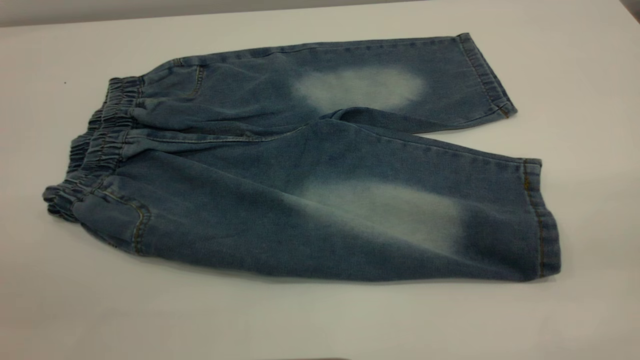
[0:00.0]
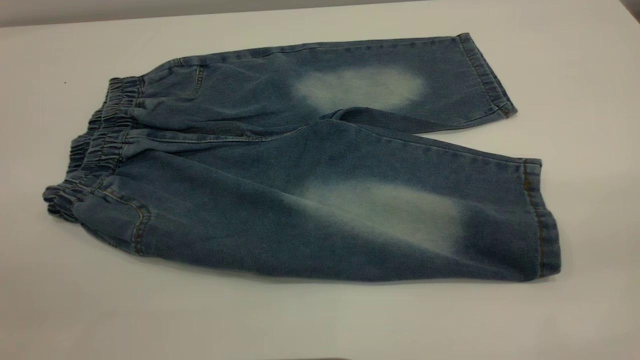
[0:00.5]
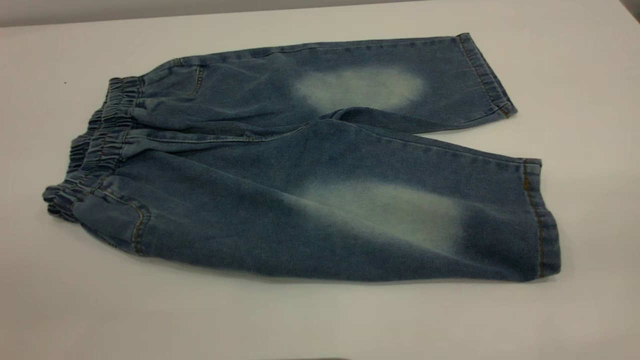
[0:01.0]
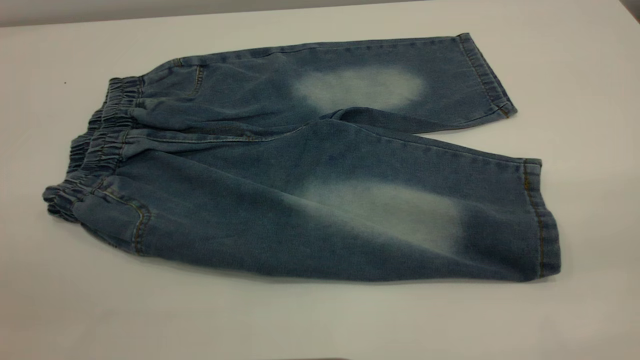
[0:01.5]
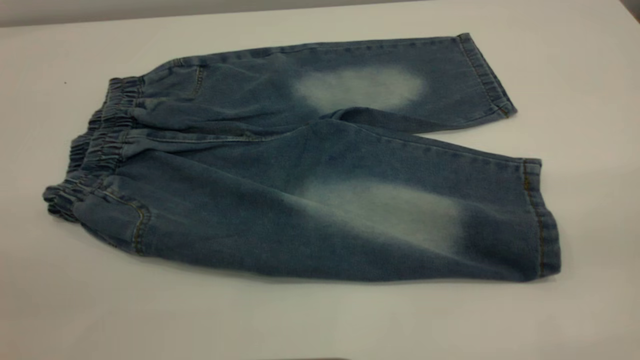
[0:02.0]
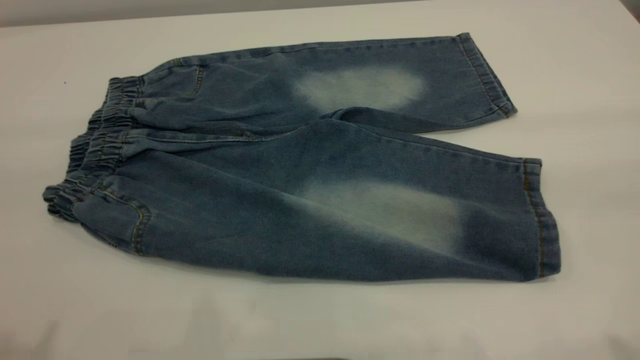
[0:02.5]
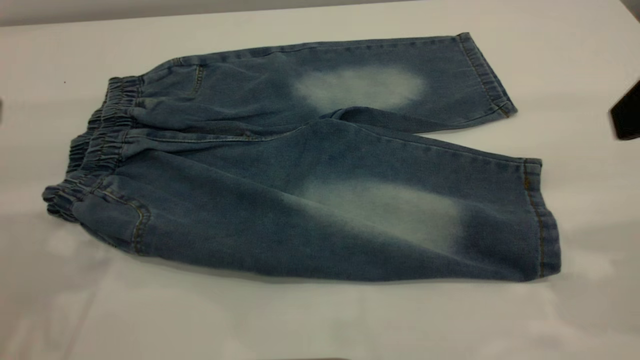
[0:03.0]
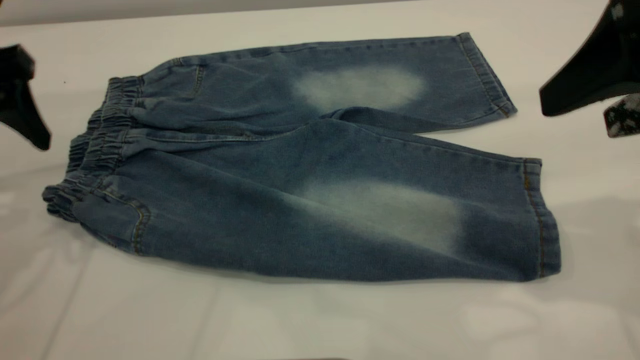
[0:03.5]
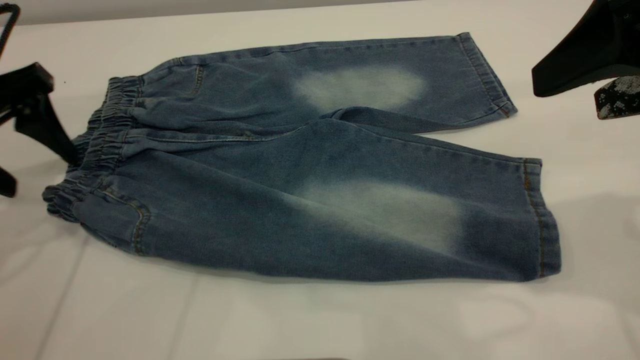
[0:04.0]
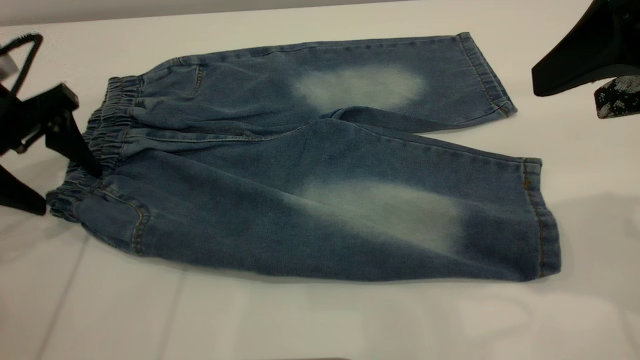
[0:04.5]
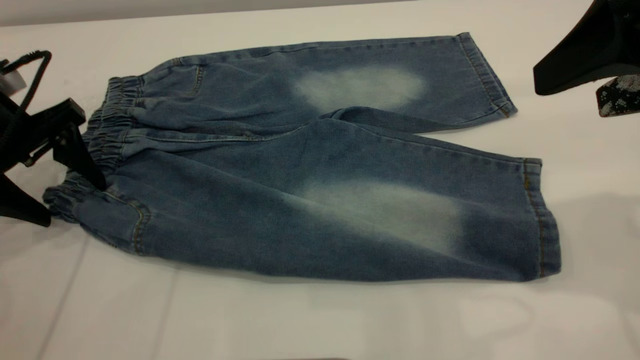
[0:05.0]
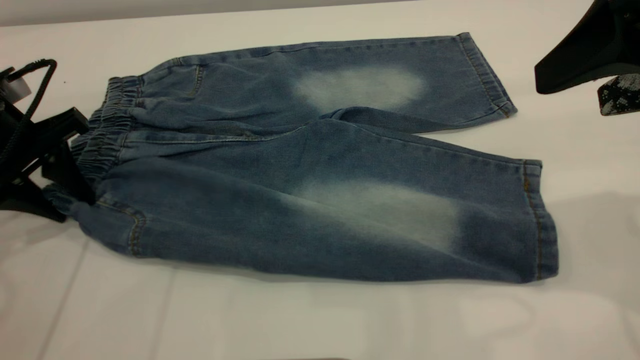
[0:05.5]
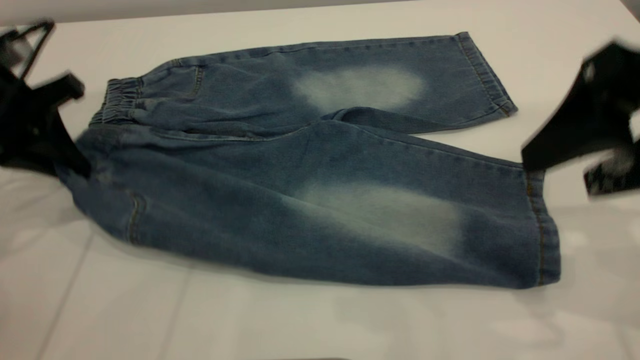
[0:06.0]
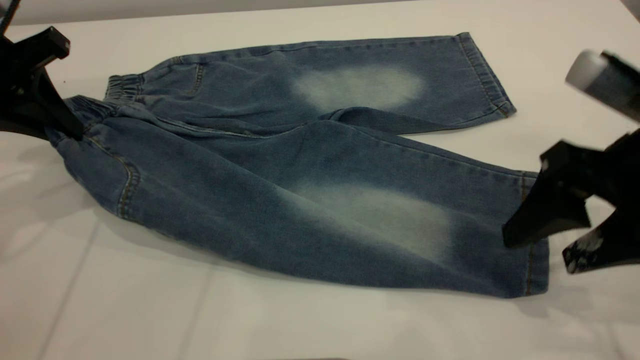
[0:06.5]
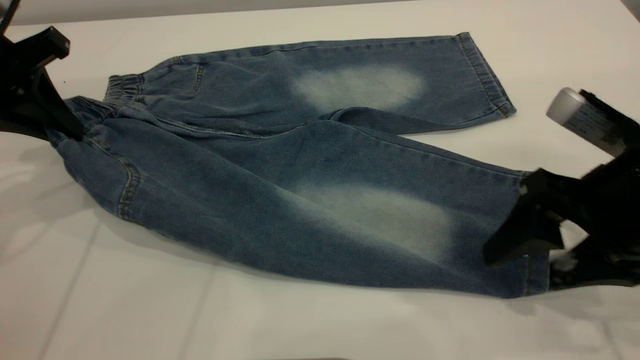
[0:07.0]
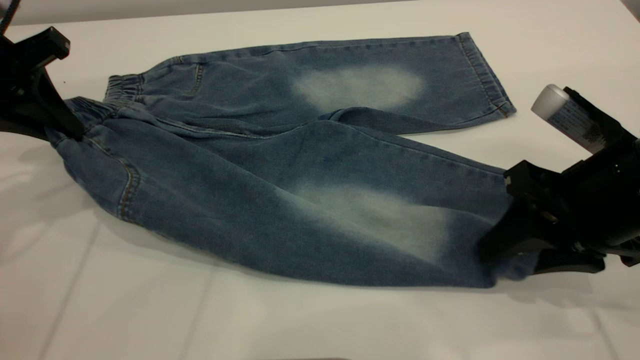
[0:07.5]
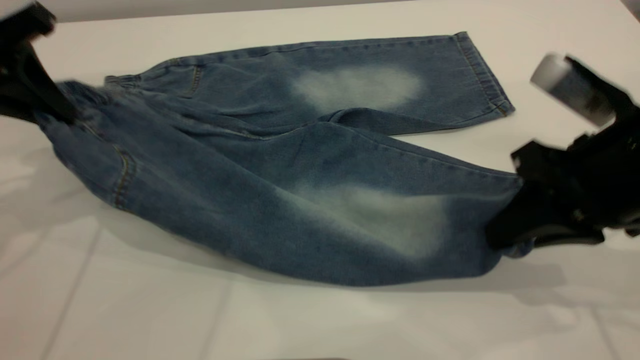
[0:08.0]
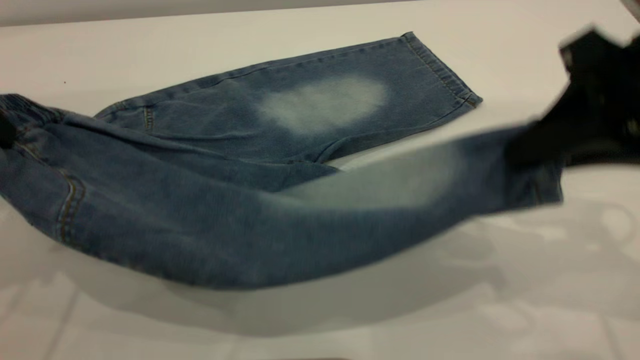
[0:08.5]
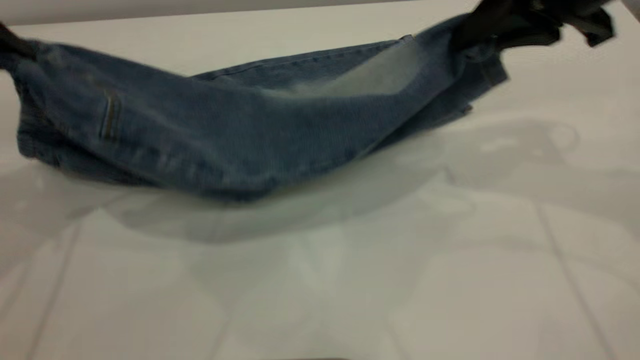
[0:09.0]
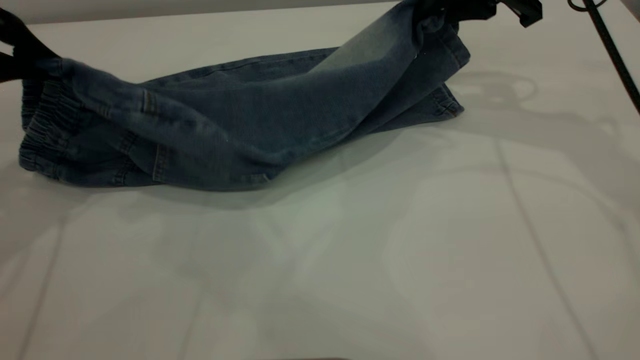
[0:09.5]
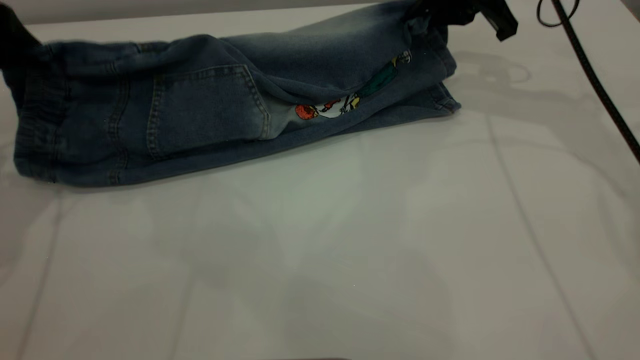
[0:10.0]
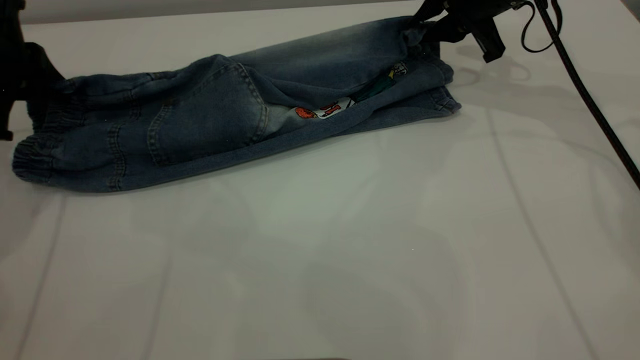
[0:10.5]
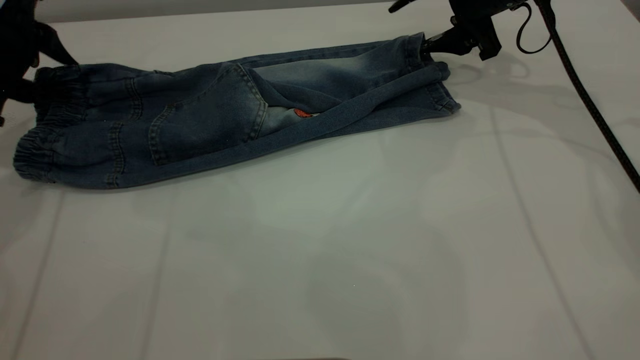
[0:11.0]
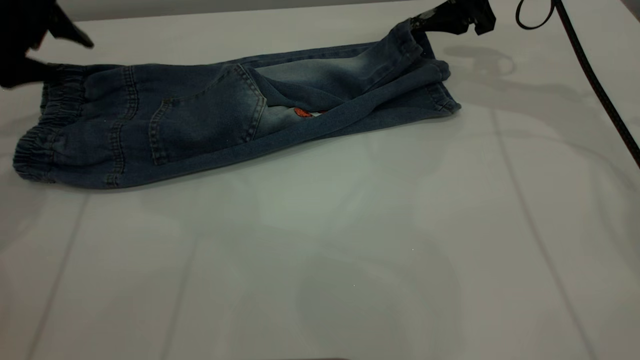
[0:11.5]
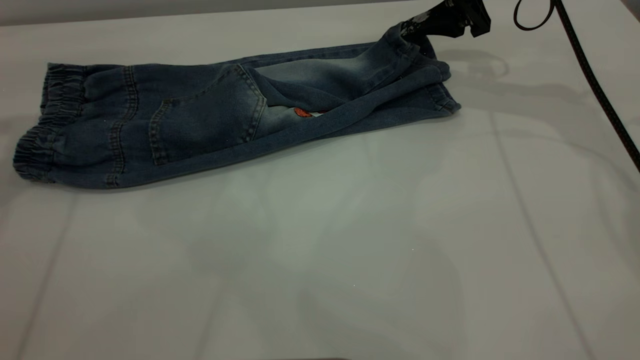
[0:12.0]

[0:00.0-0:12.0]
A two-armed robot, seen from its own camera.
Step, 0:00.0 to 0:11.5: Fold the bottom of the pants upward.
0:00.0 to 0:02.0: The two grippers keep their place.
0:02.0 to 0:04.0: The left gripper travels forward and downward by some 35 cm, while the right gripper is displaced forward by some 20 cm.
0:04.0 to 0:06.0: The left gripper closes.
0:06.0 to 0:08.0: The right gripper shifts approximately 5 cm downward, and closes, while the left gripper travels upward by approximately 5 cm.
0:08.0 to 0:10.0: The right gripper travels forward by roughly 25 cm.
0:10.0 to 0:12.0: The right gripper opens; the left gripper shifts some 5 cm upward, and opens.

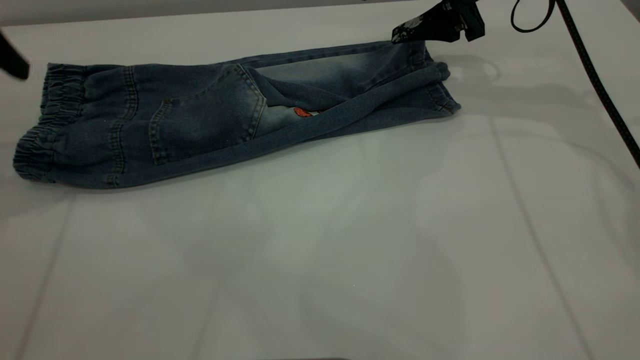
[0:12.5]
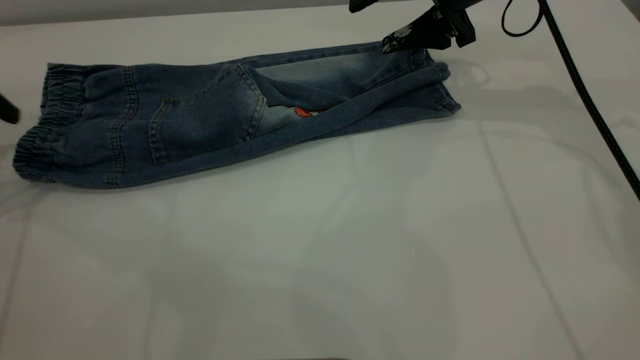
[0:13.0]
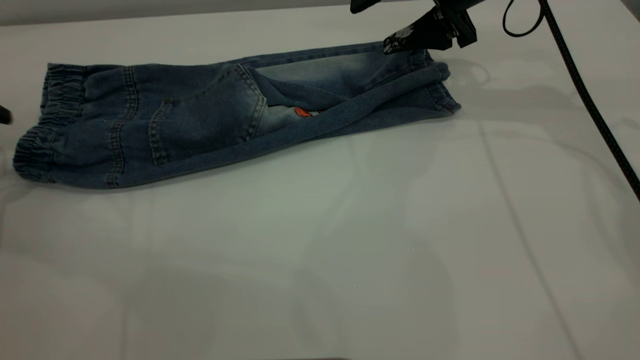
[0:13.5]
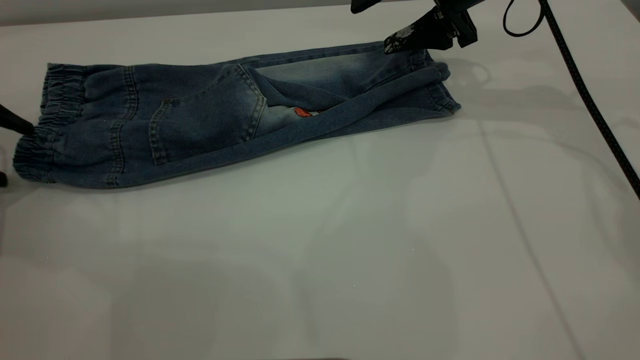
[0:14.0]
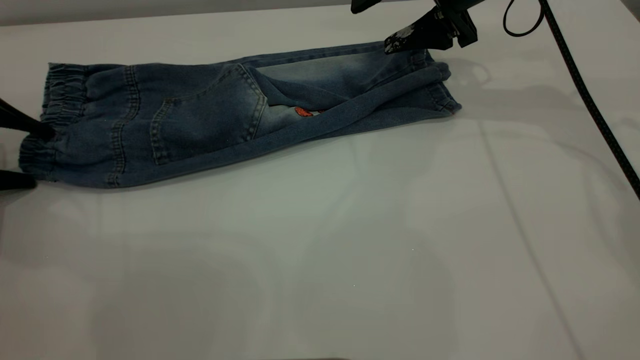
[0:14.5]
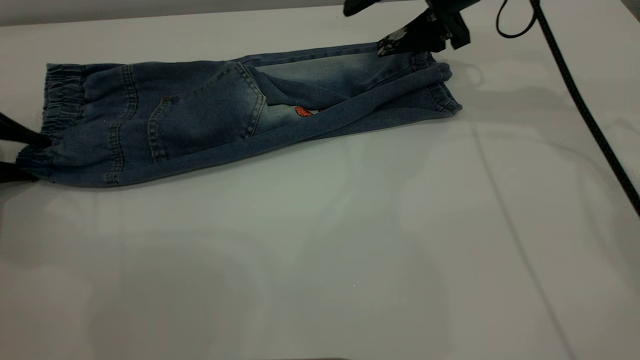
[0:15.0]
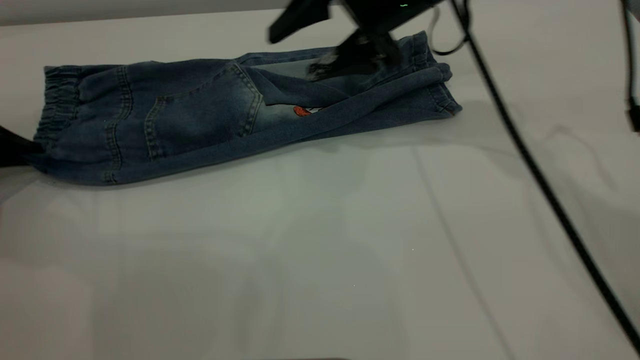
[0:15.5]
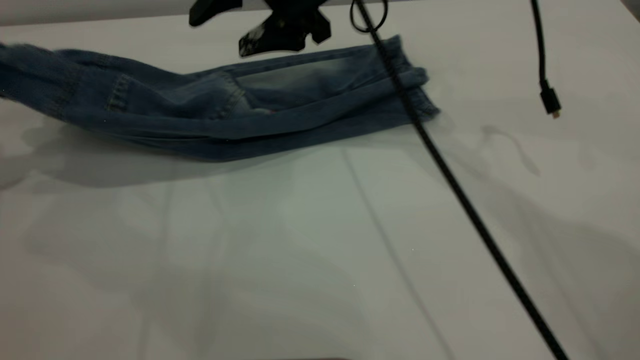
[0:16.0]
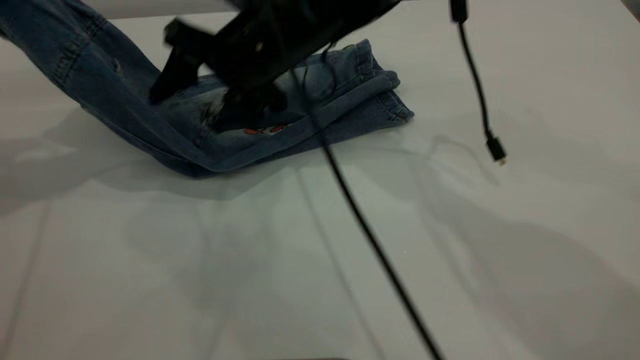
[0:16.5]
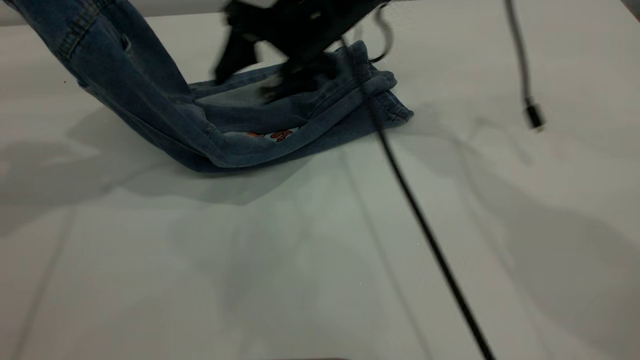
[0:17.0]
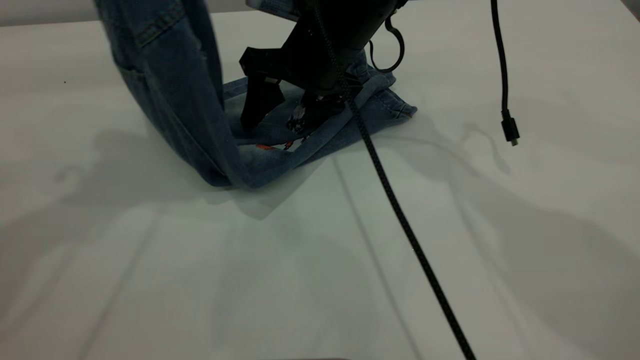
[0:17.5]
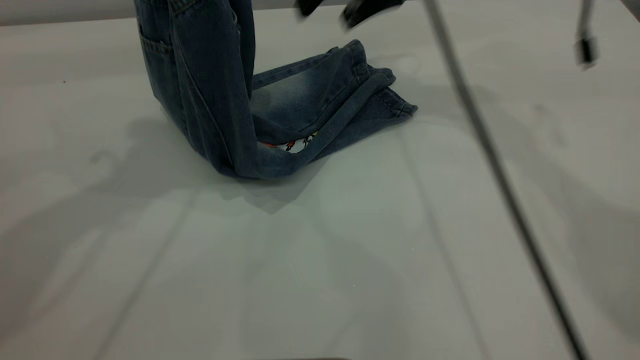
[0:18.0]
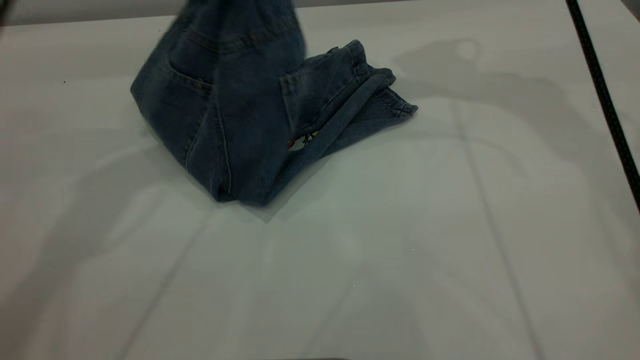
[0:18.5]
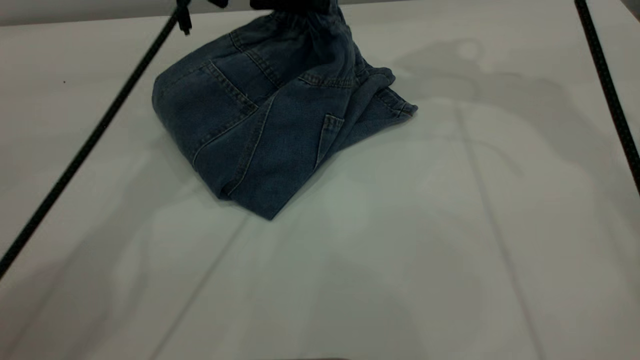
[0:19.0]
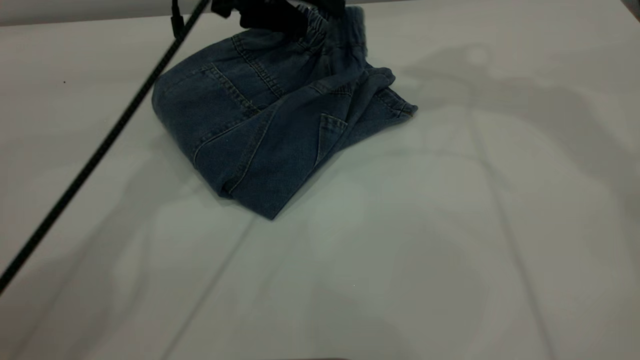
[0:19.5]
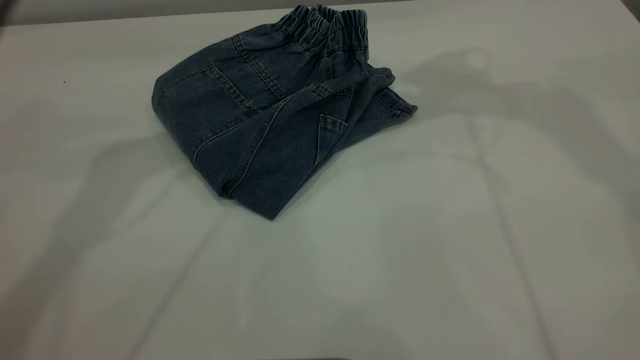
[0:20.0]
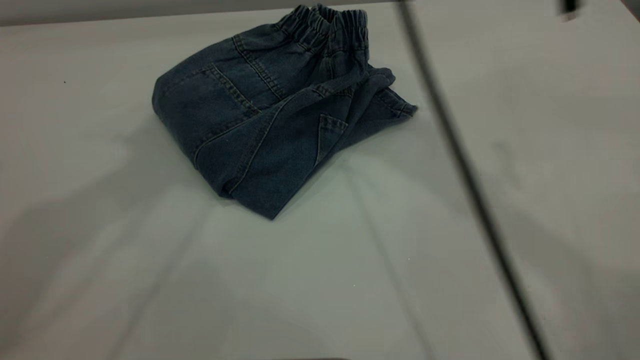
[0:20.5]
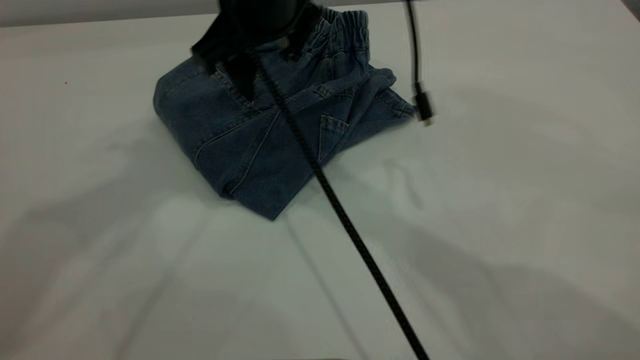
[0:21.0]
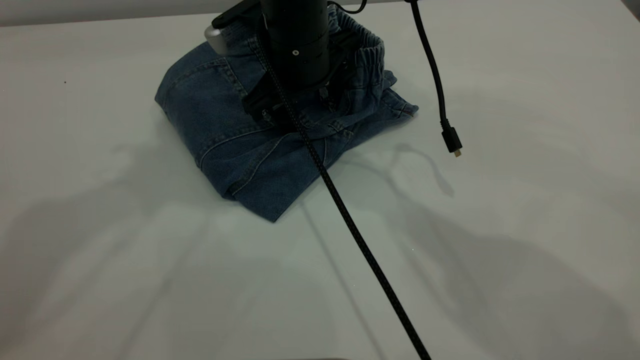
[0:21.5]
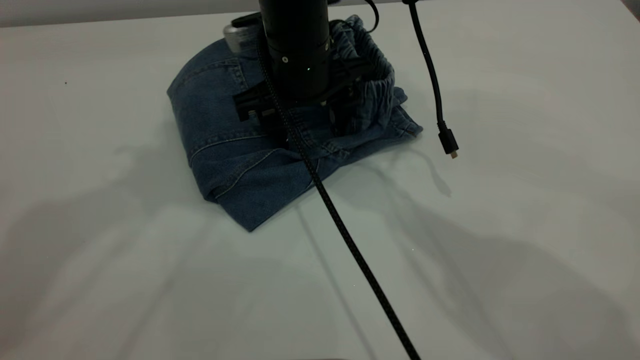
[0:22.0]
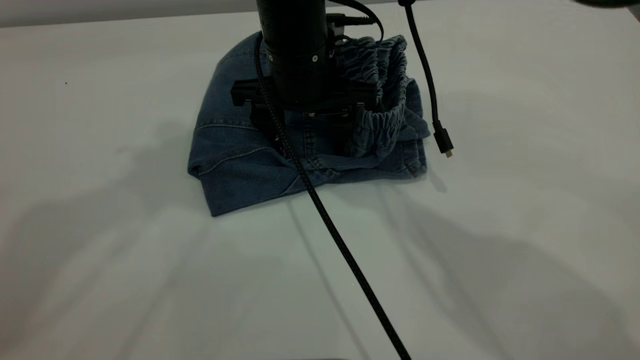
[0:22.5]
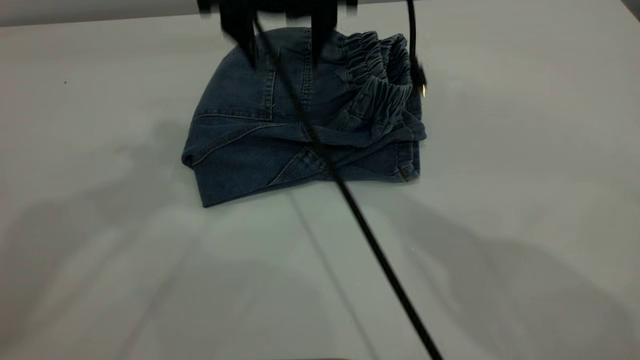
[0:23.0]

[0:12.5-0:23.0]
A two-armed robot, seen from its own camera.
Step, 0:12.5 to 0:19.5: Fold the pants from left to right.
0:12.5 to 0:14.5: The left gripper moves downward and to the left, roughly 15 cm.
0:14.5 to 0:16.5: The left gripper shifts approximately 20 cm upward, and closes, while the right gripper heads to the left, covering some 20 cm.
0:16.5 to 0:19.0: The left gripper travels to the right and forward by roughly 25 cm. Meanwhile the right gripper heads to the right and upward, covering some 30 cm.
0:19.0 to 0:21.0: The right gripper travels to the left and downward by roughly 25 cm; the left gripper goes approximately 25 cm upward and backward, and opens up.
0:21.0 to 0:23.0: The right gripper travels downward and back again, some 5 cm each way.
